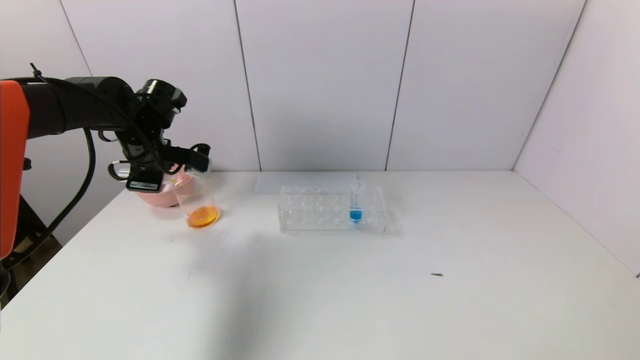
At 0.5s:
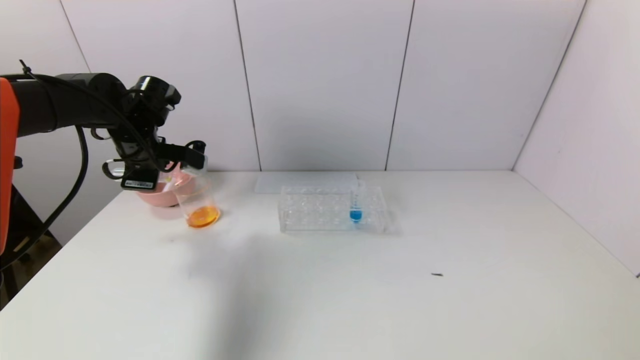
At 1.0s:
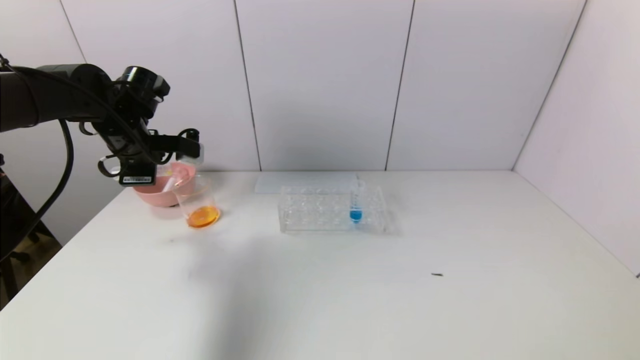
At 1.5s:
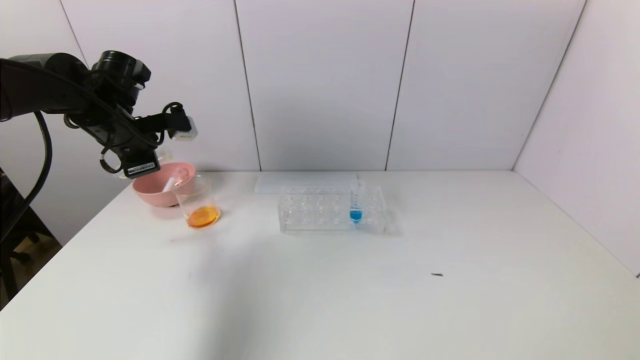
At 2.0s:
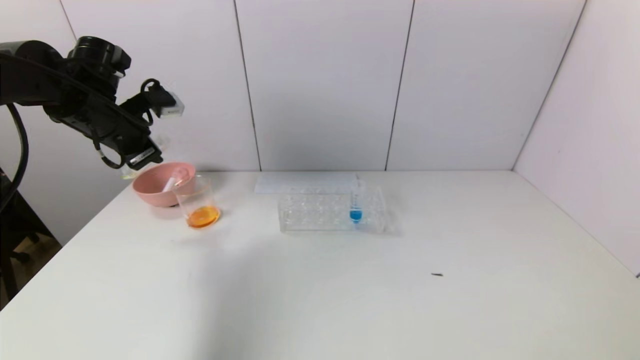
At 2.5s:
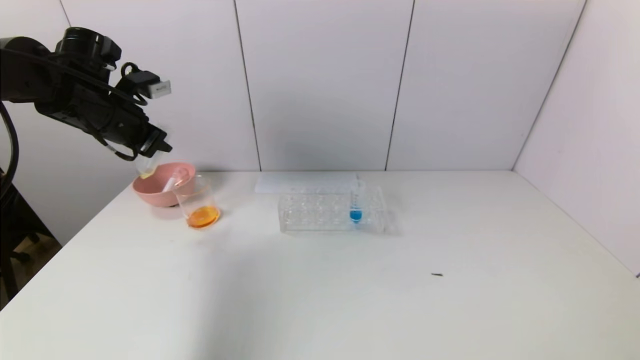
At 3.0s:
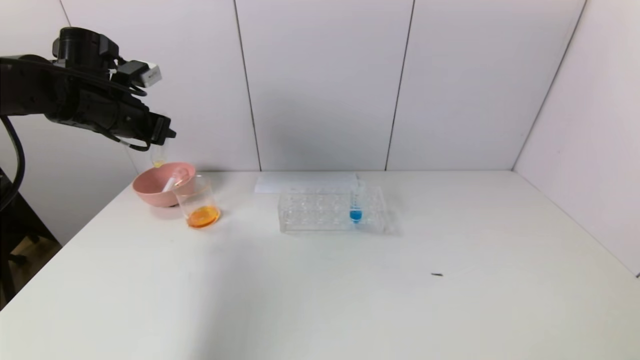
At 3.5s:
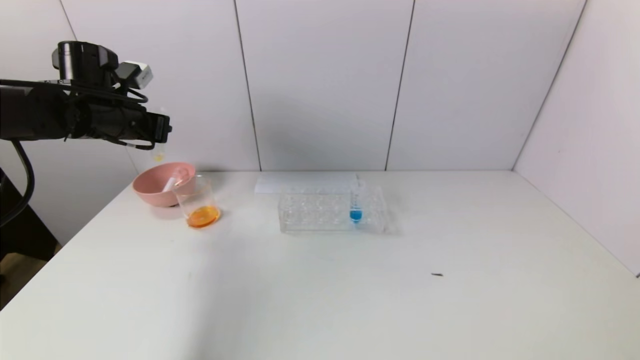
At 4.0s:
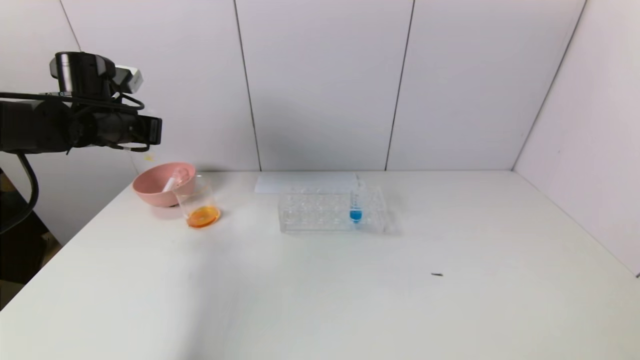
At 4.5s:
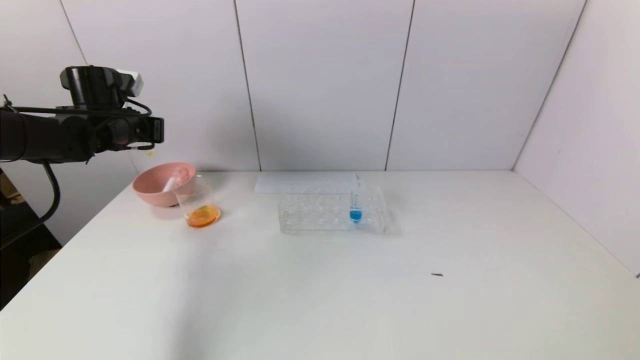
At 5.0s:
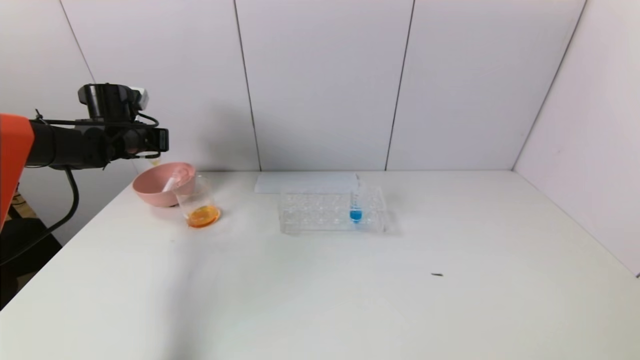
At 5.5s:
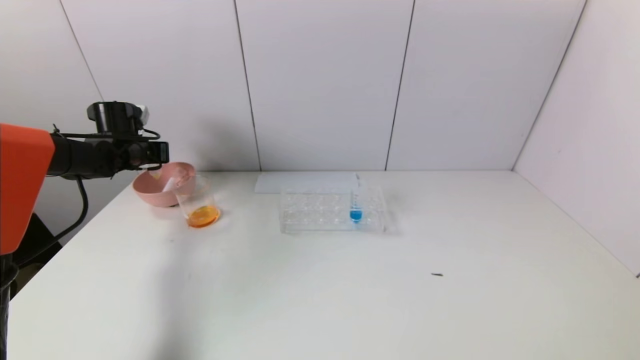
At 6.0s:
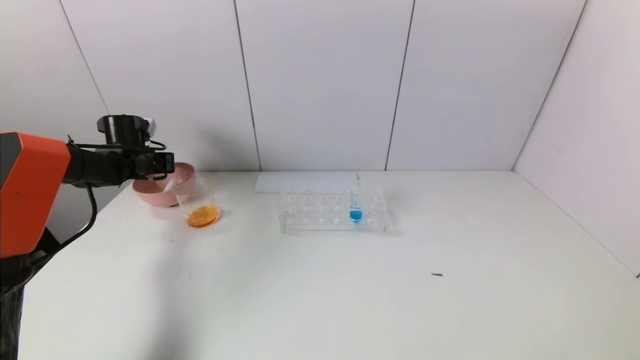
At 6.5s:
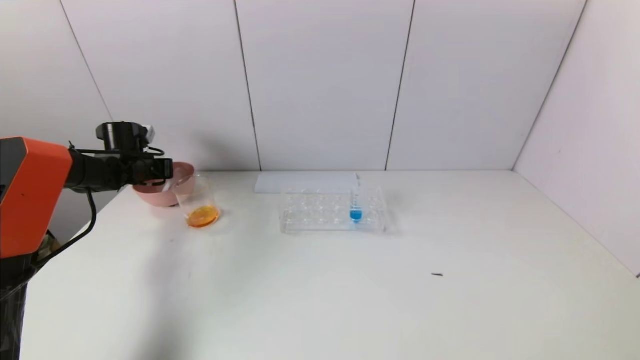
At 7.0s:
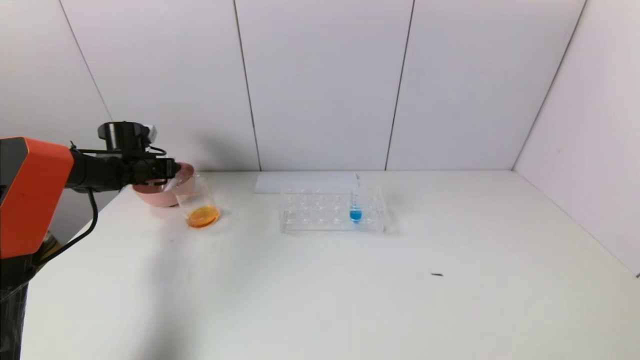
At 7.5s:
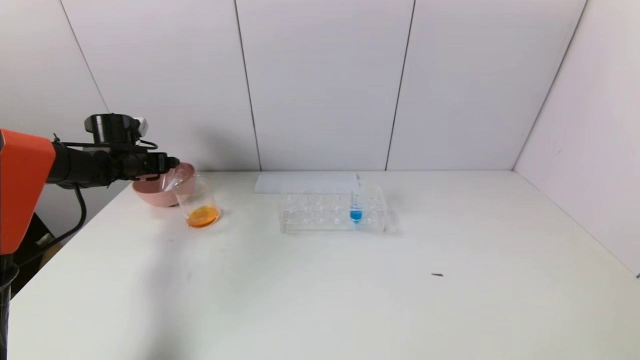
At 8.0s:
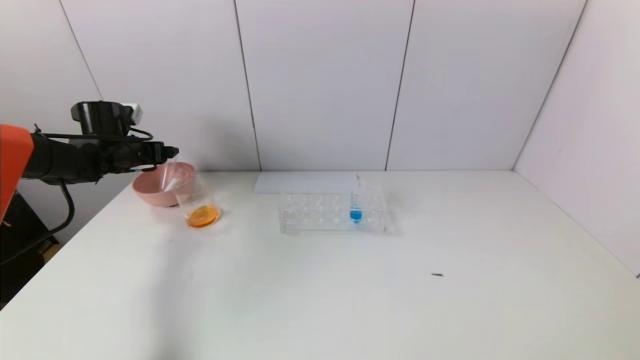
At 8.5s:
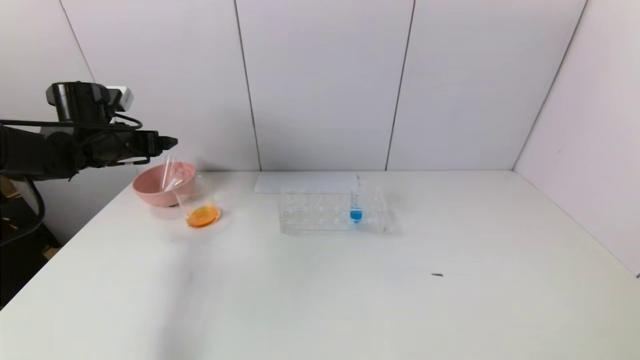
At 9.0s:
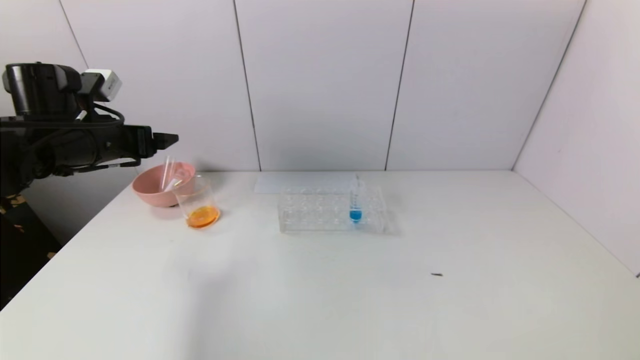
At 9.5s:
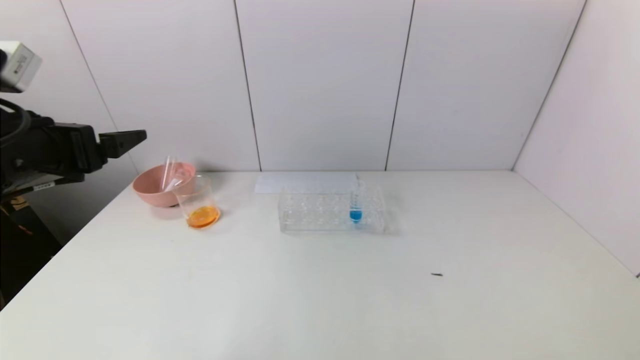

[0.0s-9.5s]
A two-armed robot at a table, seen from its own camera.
Task of the whole recording: pick up the test tube with yellow pigment and the test tube with red pigment by grippers and pour them into the beaker.
Step, 0.5s to 7.0s: Place the test tube into the pink bowl with the left gripper.
0.0s to 2.0s: The left gripper shifts approximately 5 cm upward.
4.0s to 5.5s: The left gripper shifts about 10 cm downward and forward.
5.5s to 7.5s: The left gripper opens its fingers.
7.5s to 9.5s: The left gripper heads backward and upward, covering some 30 cm.
